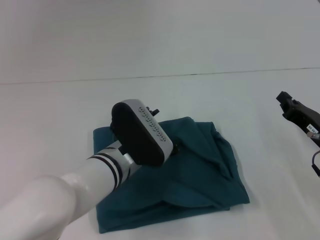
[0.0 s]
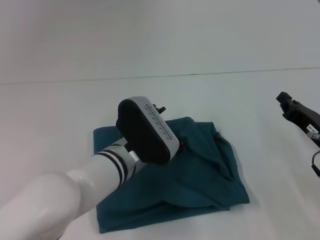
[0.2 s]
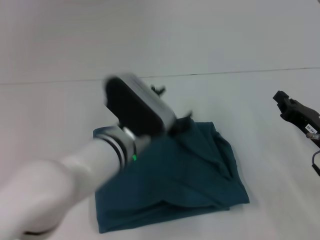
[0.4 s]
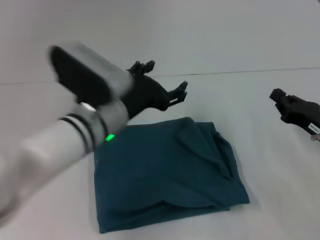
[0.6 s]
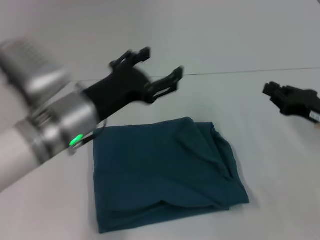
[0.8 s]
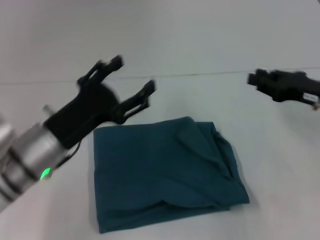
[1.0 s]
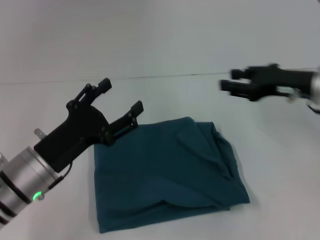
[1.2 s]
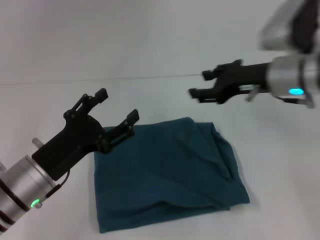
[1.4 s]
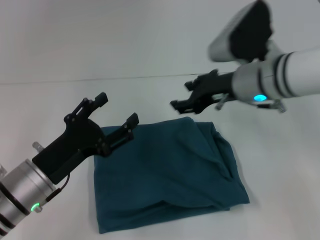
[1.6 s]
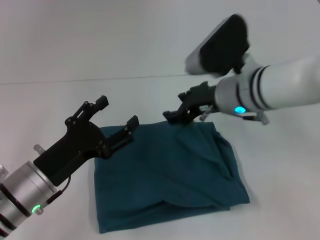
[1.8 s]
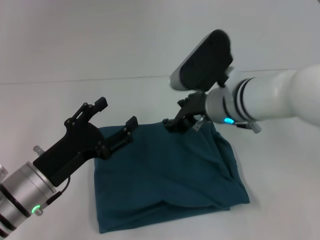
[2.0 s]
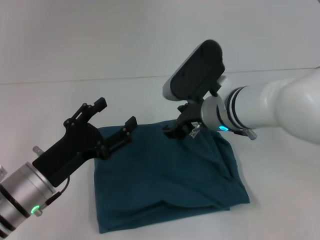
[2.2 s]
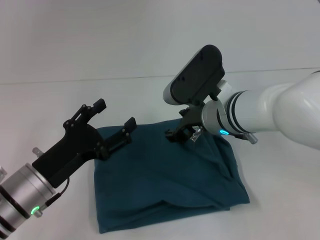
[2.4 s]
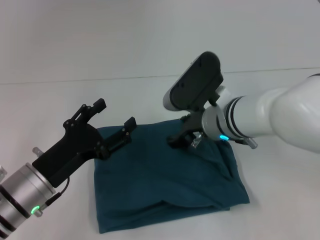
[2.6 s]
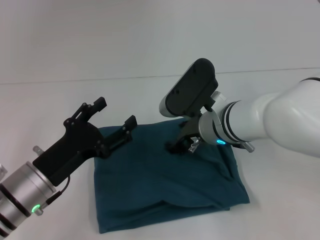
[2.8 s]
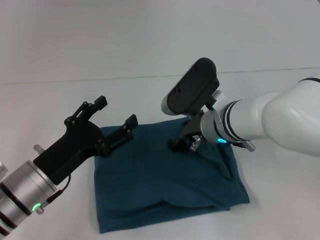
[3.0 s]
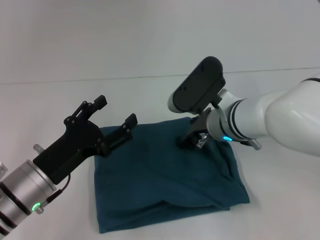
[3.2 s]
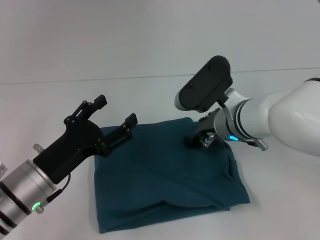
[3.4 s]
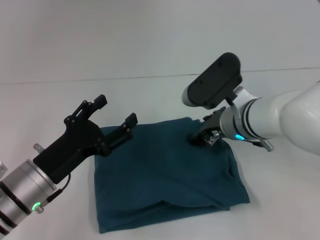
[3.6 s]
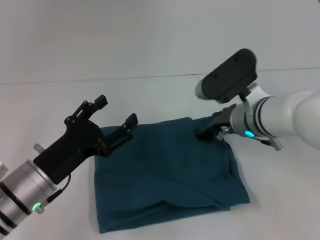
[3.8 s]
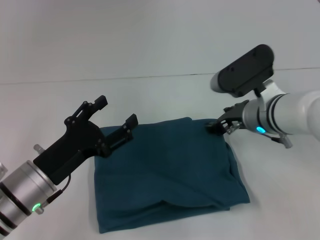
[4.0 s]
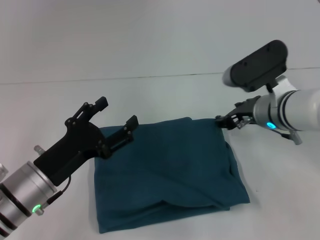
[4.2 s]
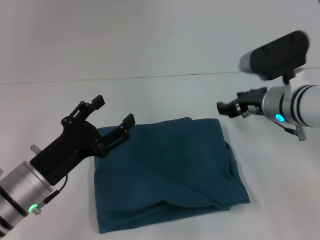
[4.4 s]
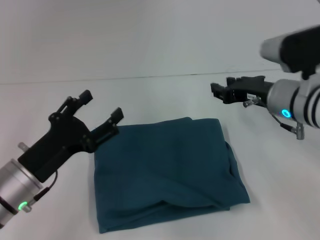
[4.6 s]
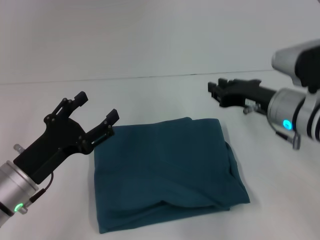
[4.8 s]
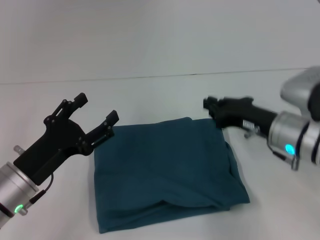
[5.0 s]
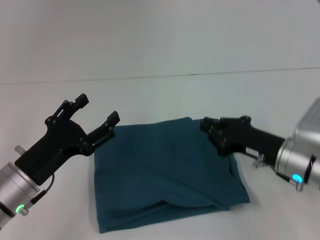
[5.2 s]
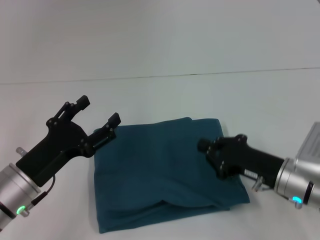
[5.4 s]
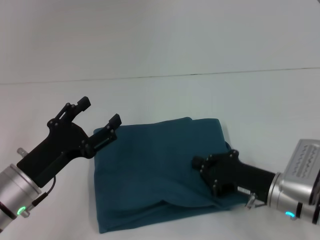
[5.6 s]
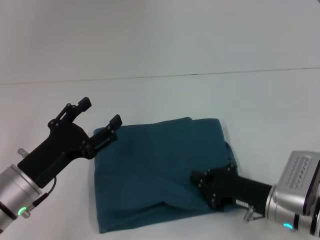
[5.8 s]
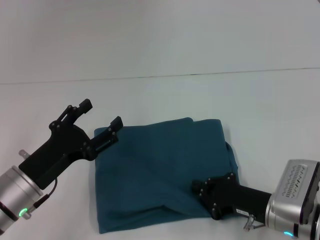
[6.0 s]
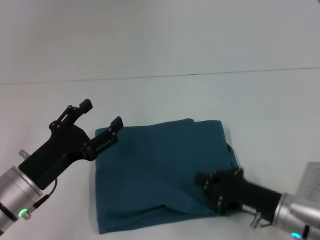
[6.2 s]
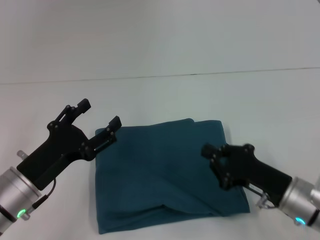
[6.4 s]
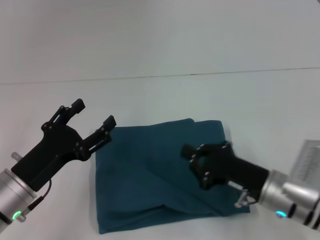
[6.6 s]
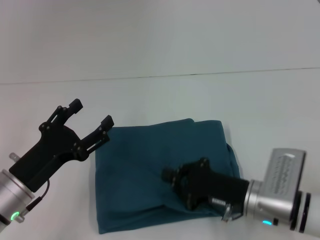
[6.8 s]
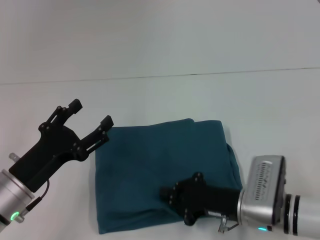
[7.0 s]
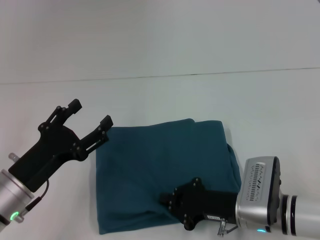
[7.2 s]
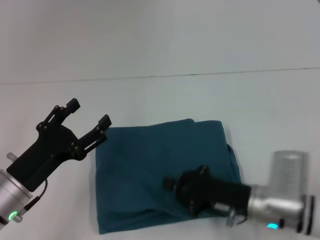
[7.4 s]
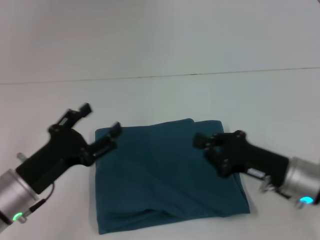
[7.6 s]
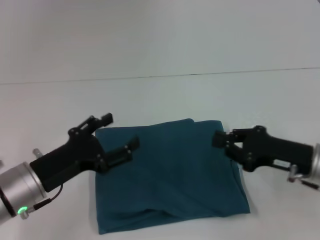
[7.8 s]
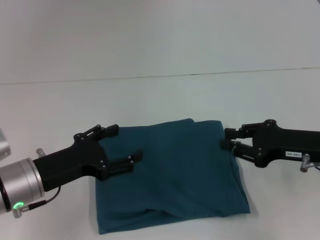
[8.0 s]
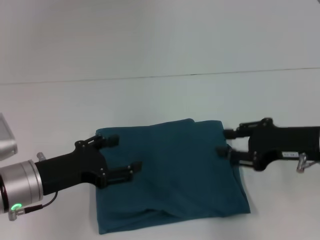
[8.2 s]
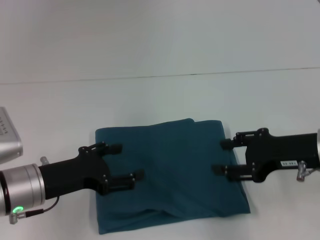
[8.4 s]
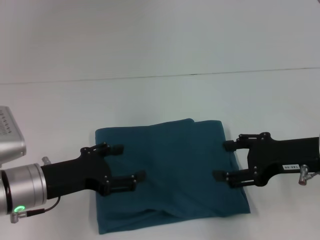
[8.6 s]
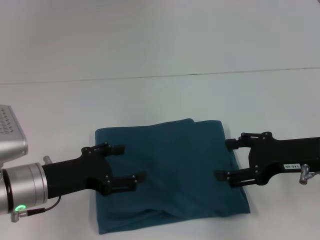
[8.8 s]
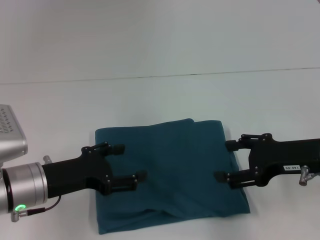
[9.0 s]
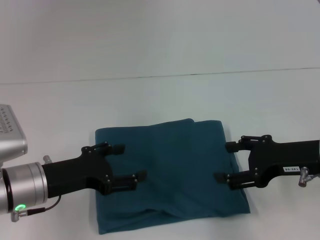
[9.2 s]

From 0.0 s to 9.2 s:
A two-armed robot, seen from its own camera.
From 0.0 s to 1.6 s: The left gripper heads to the left, covering some 15 cm. The right gripper heads upward, to the left and forward, covering some 20 cm, and opens its fingers.
From 1.6 s to 3.0 s: The right gripper moves downward and to the left, about 10 cm.
From 3.0 s to 4.6 s: The right gripper travels to the right by about 10 cm.
From 4.6 s to 6.2 s: The right gripper moves downward and backward, roughly 20 cm, and closes.
From 6.2 s to 7.6 s: The right gripper shifts by some 5 cm.
From 7.6 s to 9.2 s: The right gripper moves upward, about 10 cm, and opens its fingers.

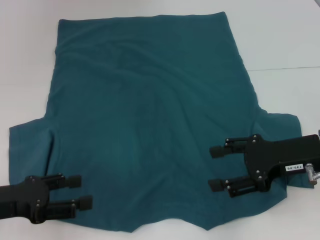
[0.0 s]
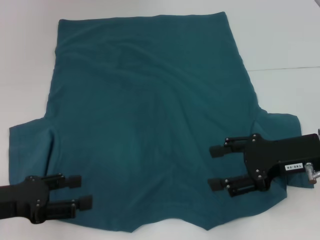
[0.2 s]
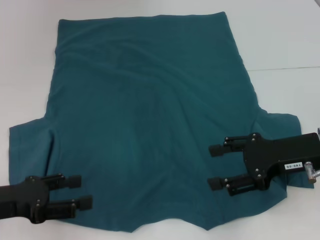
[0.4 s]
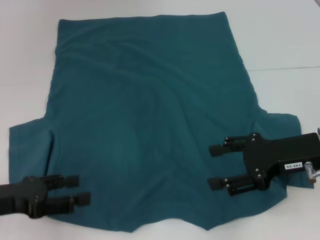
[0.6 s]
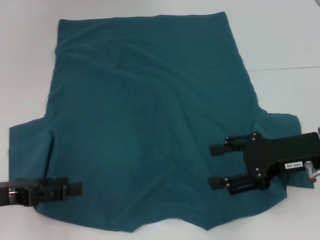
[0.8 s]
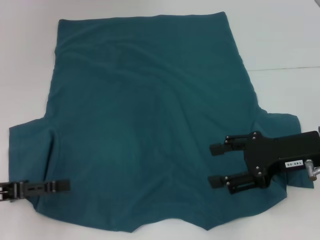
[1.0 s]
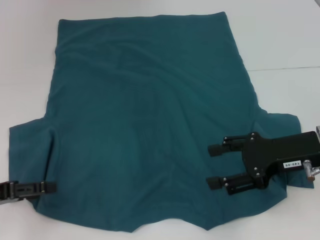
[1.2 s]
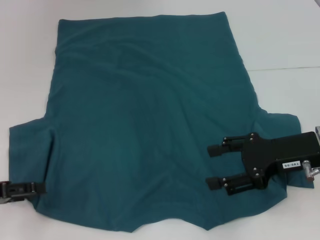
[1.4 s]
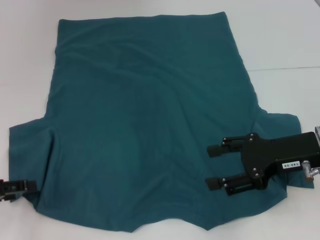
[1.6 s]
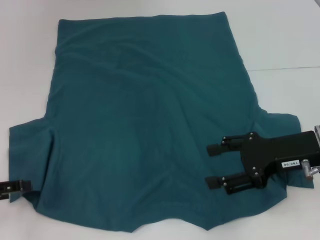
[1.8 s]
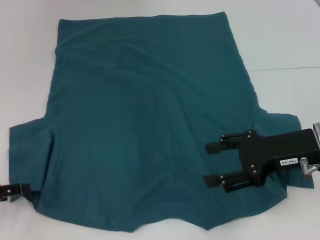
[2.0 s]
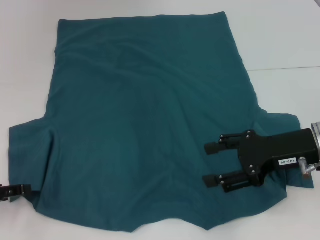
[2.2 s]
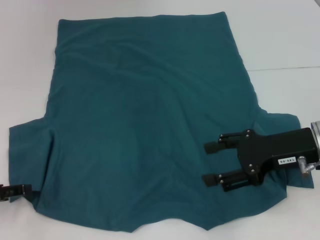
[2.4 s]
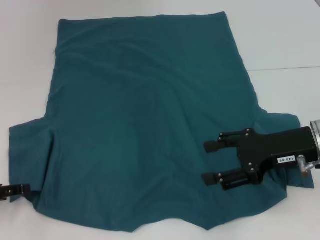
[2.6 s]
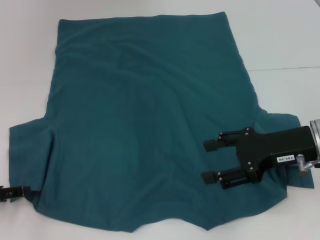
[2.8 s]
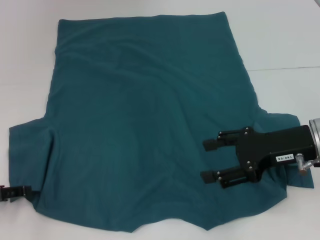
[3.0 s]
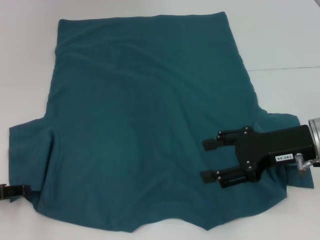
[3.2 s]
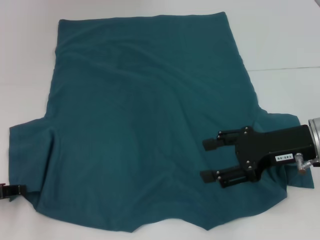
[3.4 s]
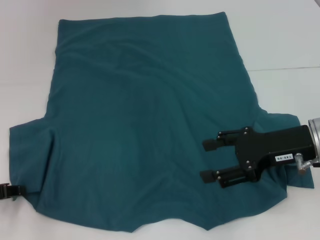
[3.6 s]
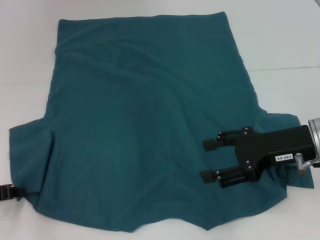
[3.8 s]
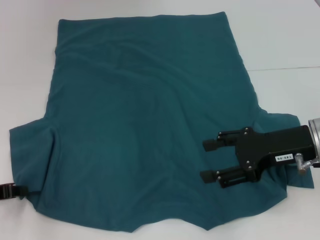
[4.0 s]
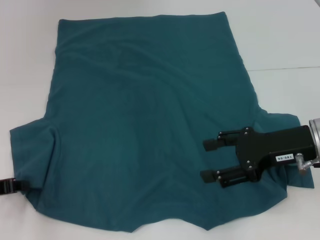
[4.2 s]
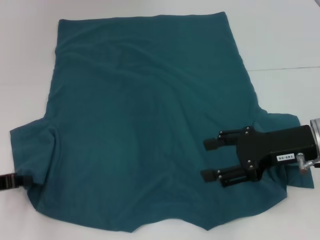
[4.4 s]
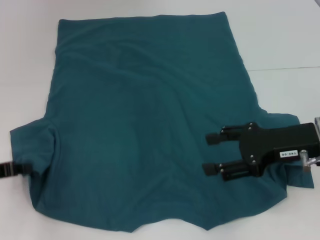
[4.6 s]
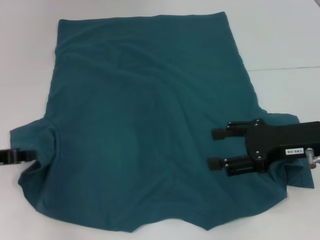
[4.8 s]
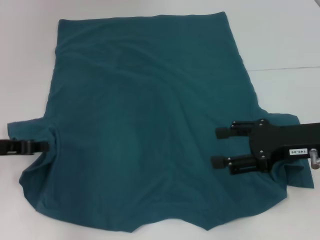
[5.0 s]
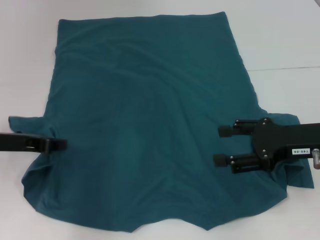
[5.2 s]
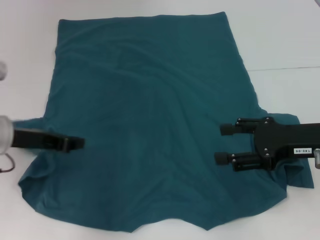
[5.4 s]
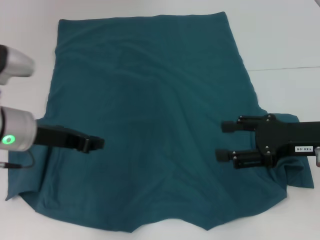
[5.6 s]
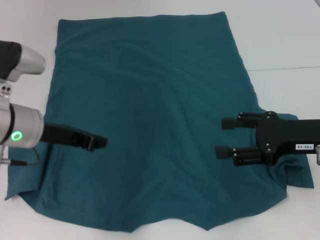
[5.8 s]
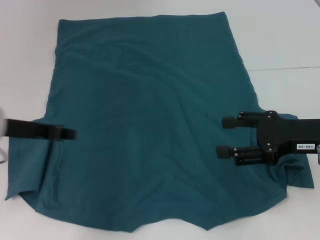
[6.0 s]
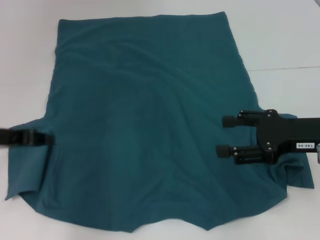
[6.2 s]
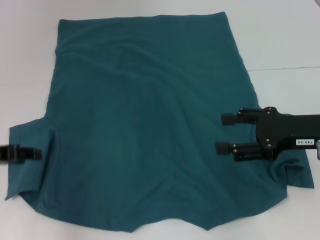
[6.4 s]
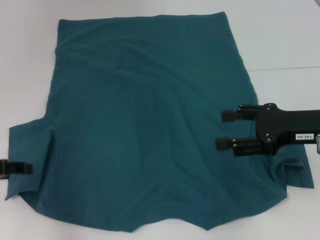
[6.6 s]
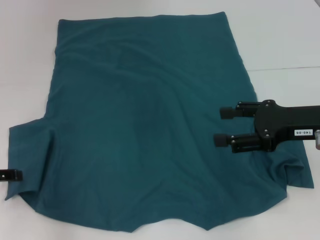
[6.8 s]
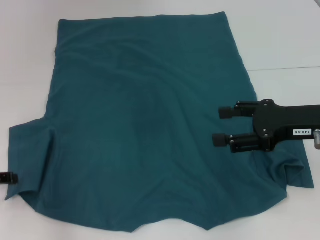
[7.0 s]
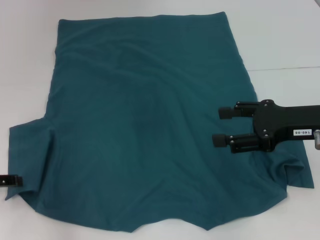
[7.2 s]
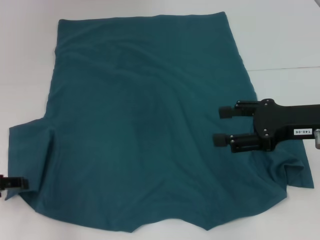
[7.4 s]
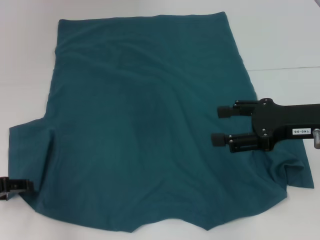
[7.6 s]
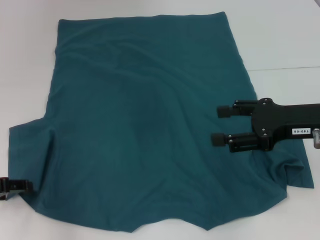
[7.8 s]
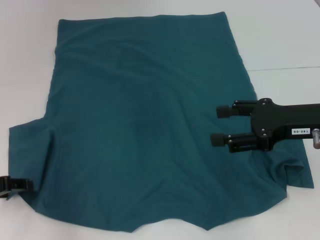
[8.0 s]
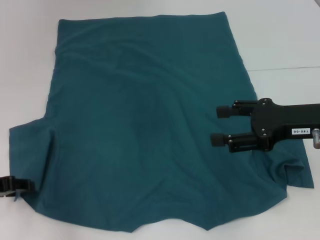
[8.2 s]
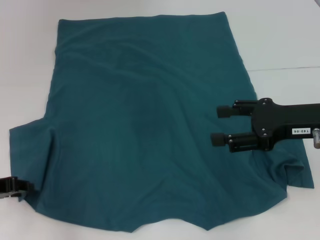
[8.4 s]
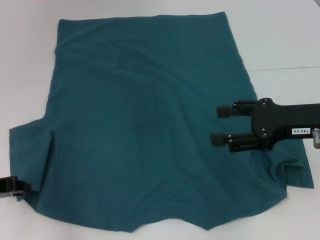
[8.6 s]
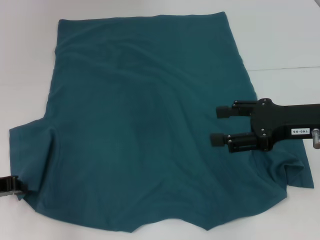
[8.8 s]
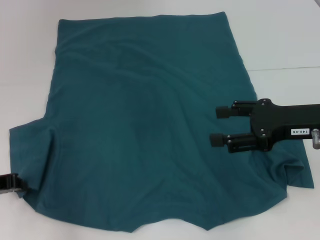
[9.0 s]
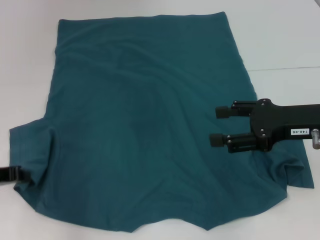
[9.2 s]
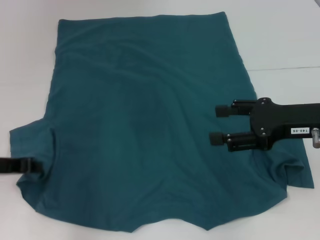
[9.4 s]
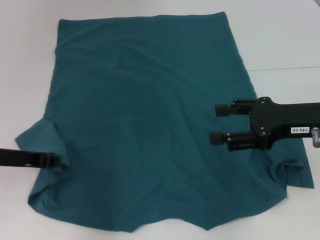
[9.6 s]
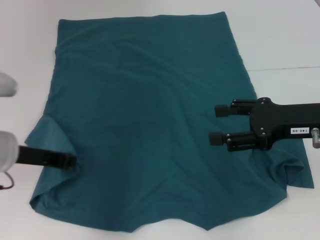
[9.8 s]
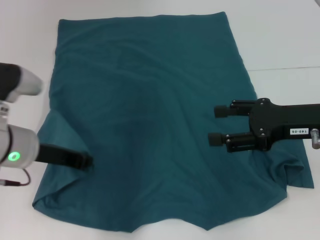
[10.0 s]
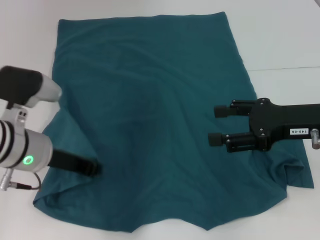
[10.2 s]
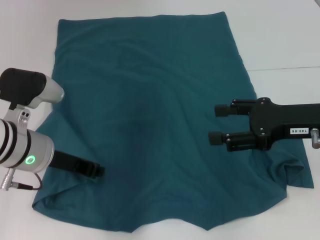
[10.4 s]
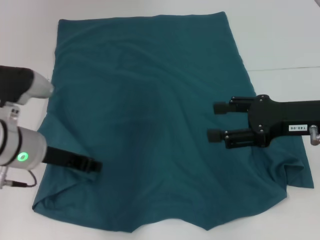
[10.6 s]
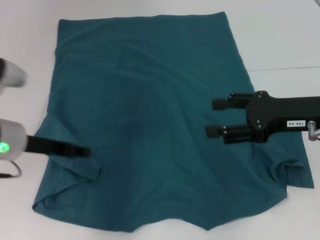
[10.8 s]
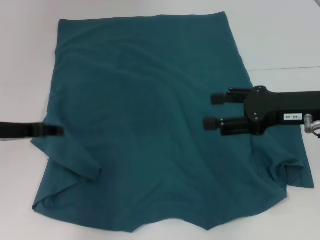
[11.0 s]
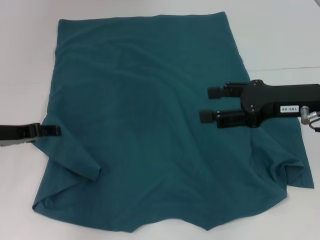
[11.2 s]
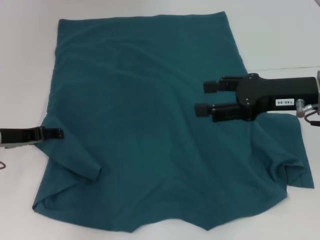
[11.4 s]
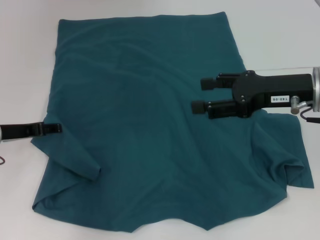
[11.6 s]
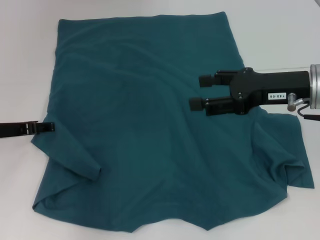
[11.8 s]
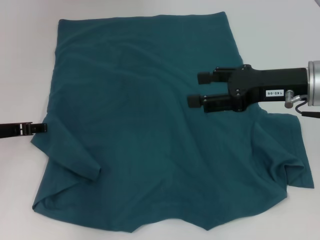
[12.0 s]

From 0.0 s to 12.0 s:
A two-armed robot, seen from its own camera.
From 0.0 s to 1.6 s: The left gripper shifts some 5 cm to the left.
From 1.6 s to 3.0 s: The grippers move only a little.
From 3.0 s to 4.4 s: The left gripper closes up.
From 4.4 s to 6.0 s: The left gripper travels to the right, upward and forward by some 15 cm.
From 6.0 s to 7.6 s: The left gripper goes some 10 cm to the left, backward and downward, and opens up.
From 7.6 s to 9.0 s: The left gripper closes.
From 9.0 s to 10.4 s: The left gripper goes some 10 cm to the right.
From 10.4 s to 12.0 s: The right gripper changes place by some 5 cm; the left gripper heads to the left, covering about 10 cm, and opens its fingers.

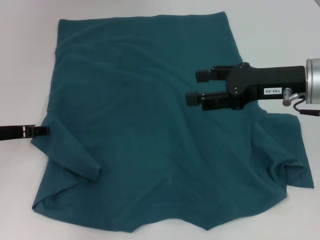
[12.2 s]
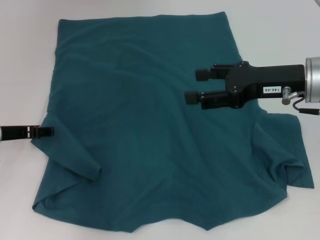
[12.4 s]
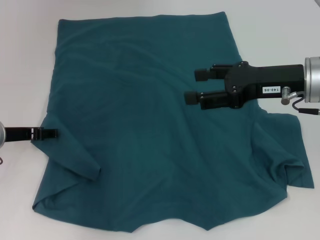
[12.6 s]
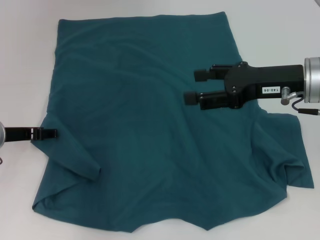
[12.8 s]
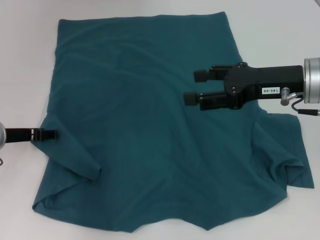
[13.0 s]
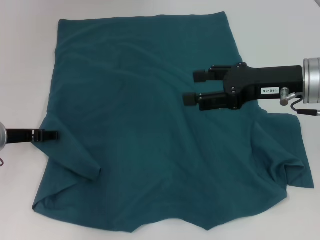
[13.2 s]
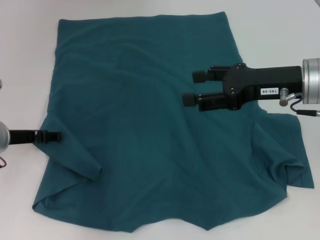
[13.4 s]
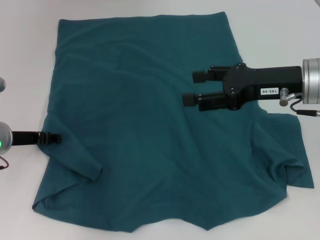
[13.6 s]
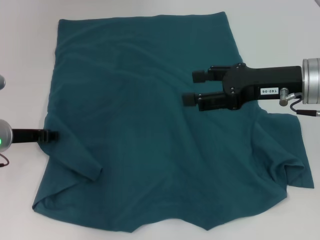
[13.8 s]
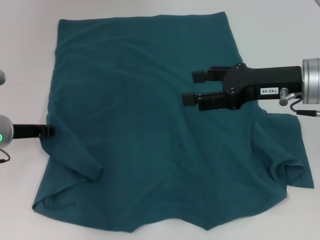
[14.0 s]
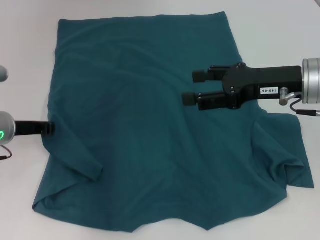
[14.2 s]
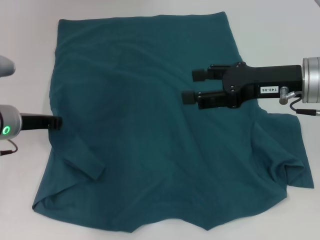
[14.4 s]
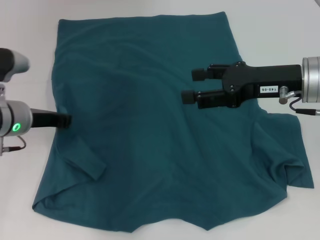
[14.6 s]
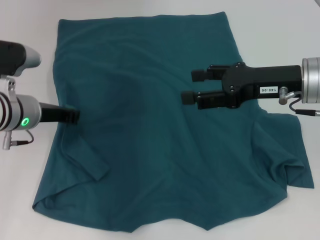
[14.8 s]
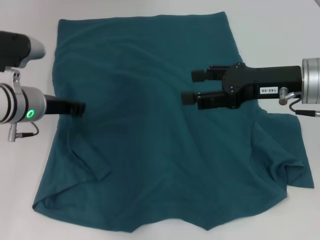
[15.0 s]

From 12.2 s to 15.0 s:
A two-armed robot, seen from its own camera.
From 12.2 s to 13.6 s: The grippers make only small movements.
From 13.6 s to 15.0 s: The left gripper moves to the right, some 5 cm, and closes its fingers.
